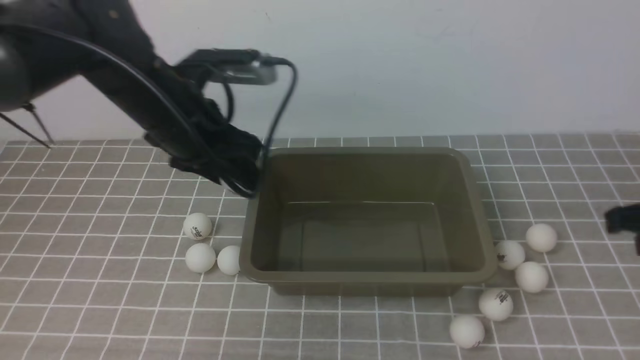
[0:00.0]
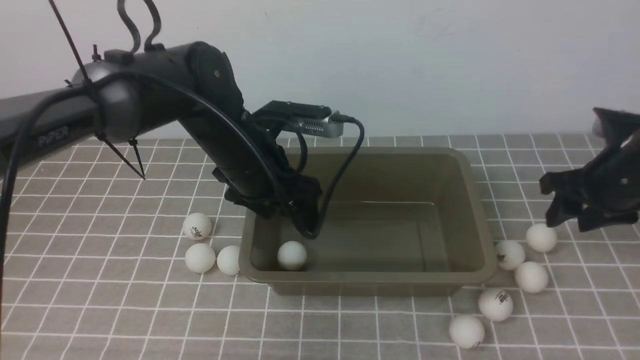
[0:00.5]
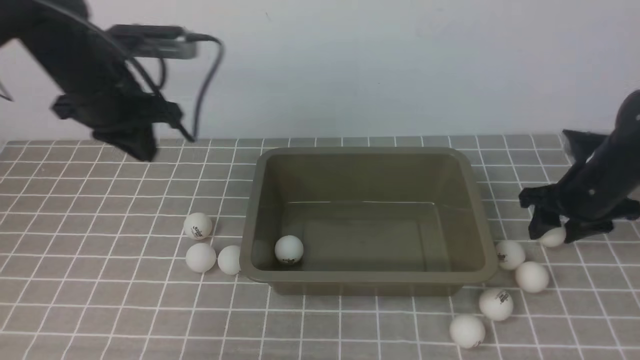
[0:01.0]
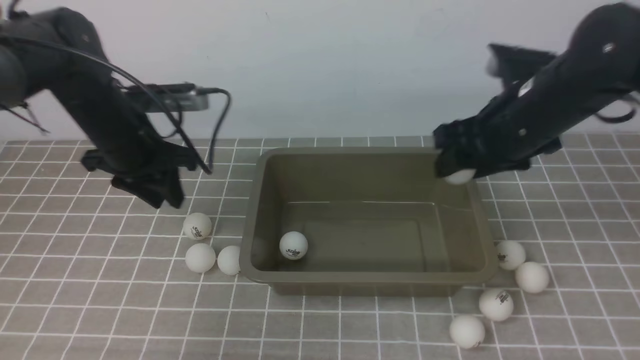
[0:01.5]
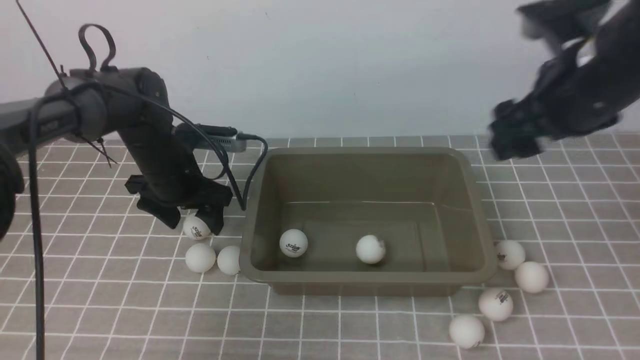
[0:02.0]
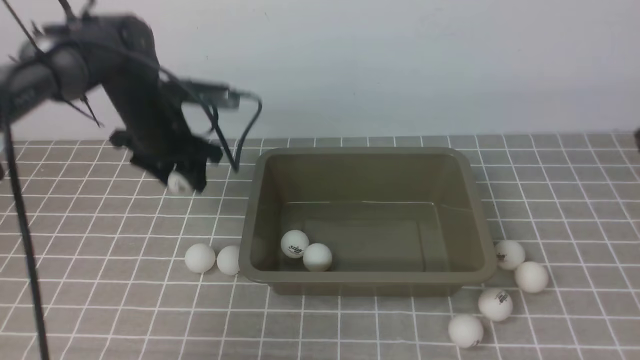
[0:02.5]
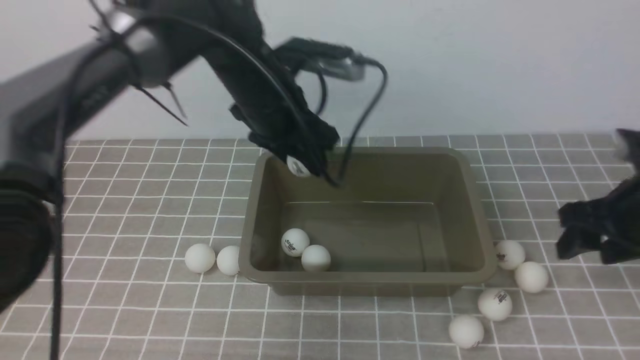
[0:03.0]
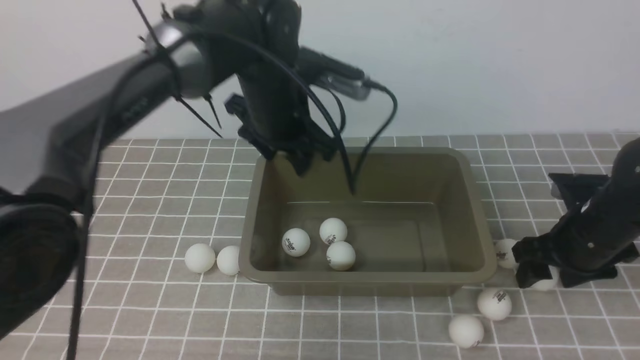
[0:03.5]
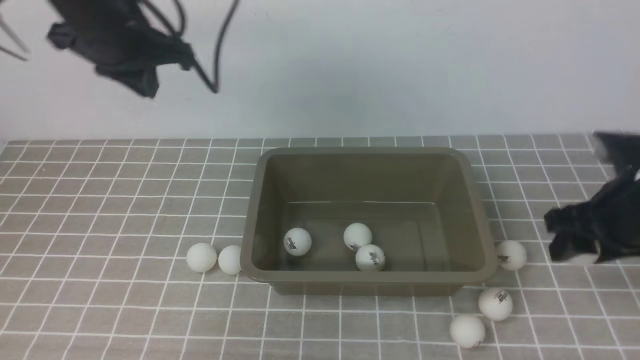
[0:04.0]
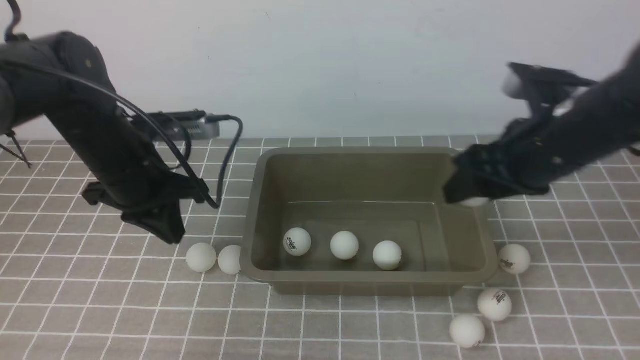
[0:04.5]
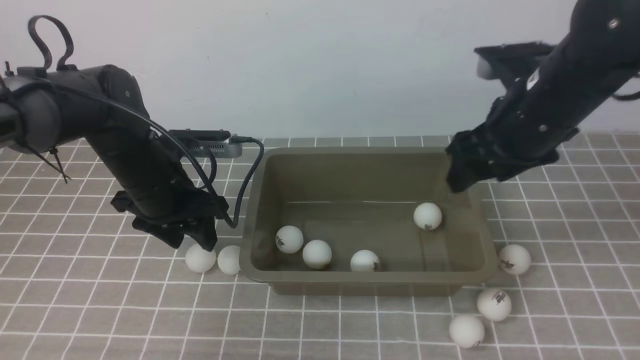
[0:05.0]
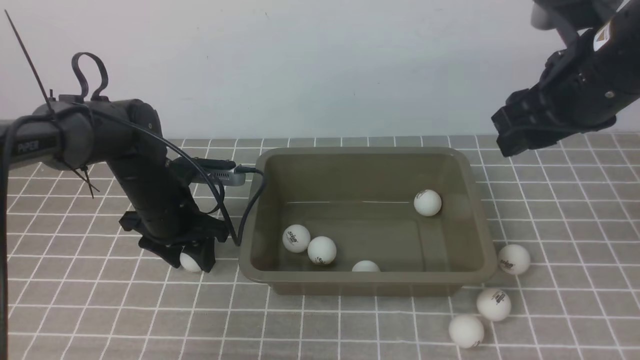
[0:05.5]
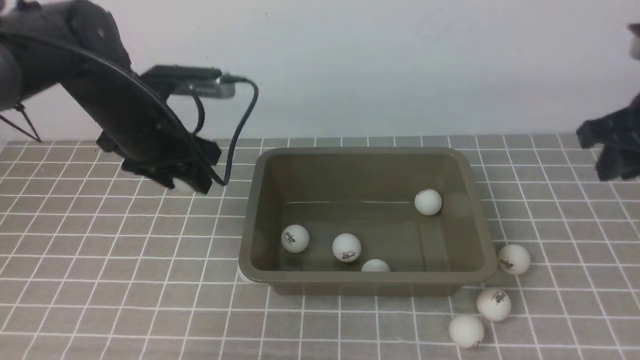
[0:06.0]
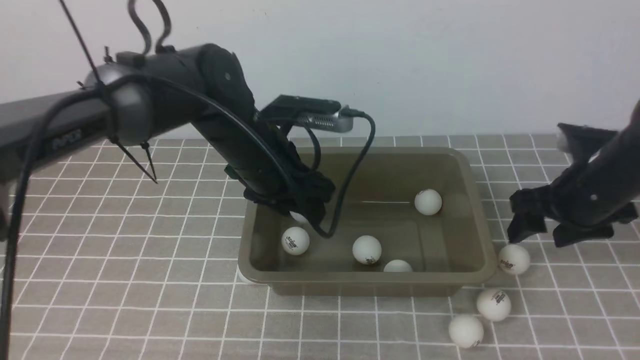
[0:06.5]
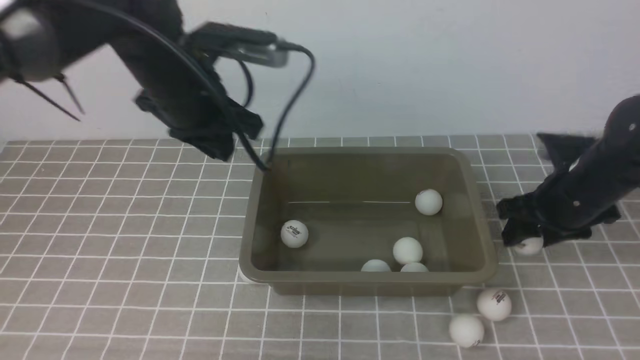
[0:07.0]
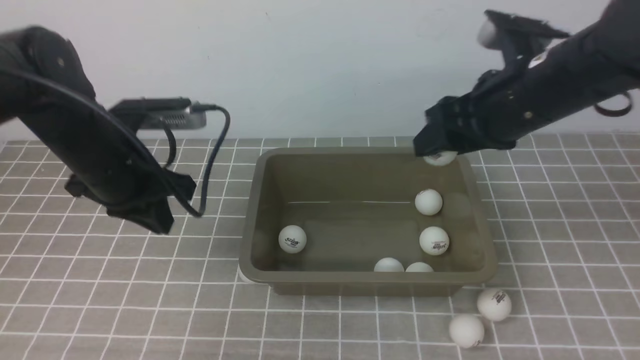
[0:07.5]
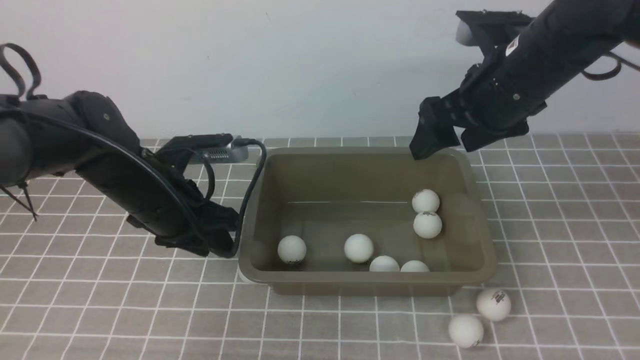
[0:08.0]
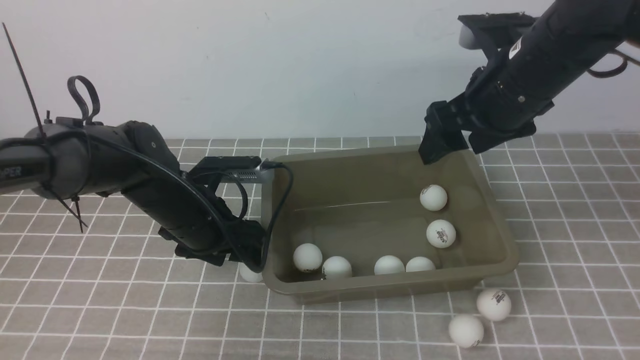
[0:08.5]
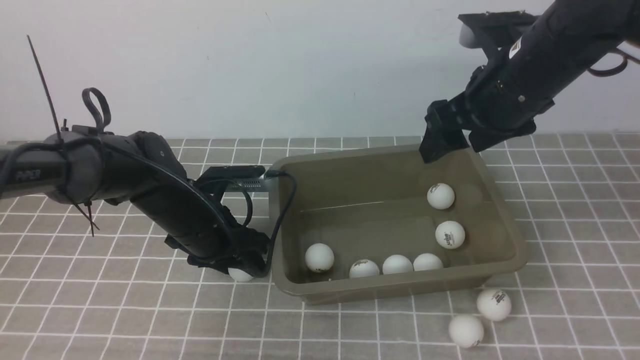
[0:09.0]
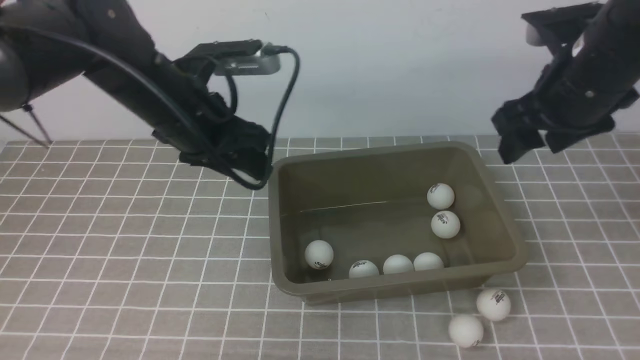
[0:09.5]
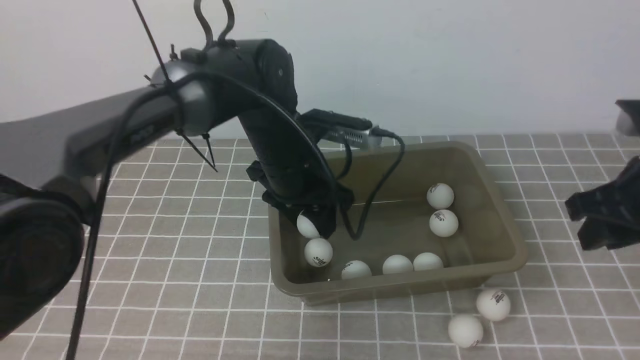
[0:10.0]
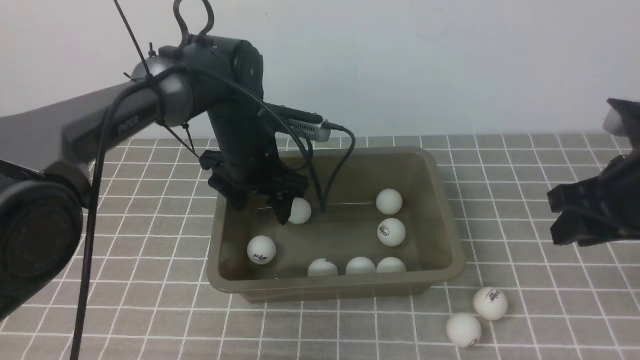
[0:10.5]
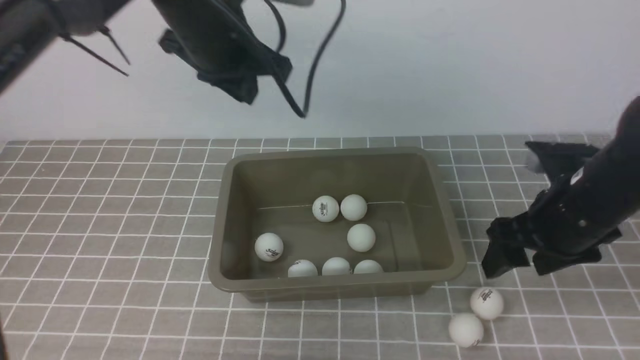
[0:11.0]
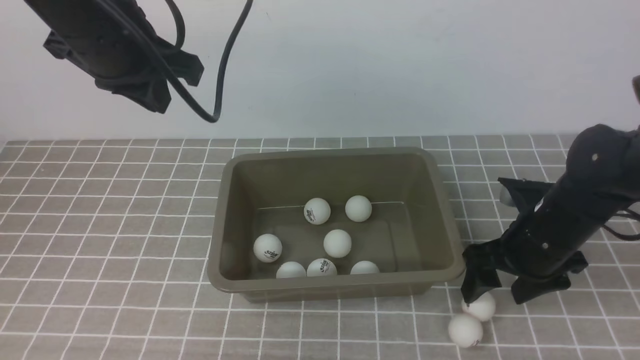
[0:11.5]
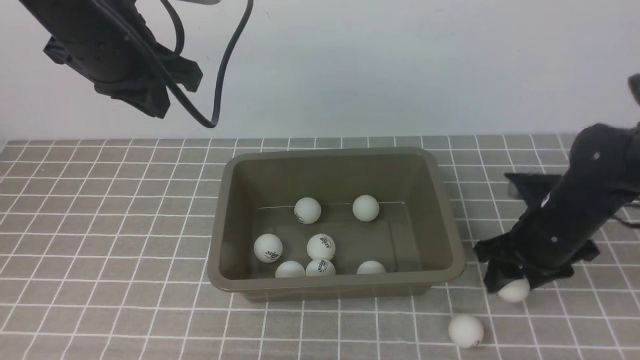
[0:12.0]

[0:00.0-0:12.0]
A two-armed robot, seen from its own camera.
Step, 0:00.0 to 0:00.5: use the left arm to put the table tennis ball into the box.
Step, 0:03.5 to 0:04.0: use the right arm to clamp the table tennis ball closest to it.
Step, 0:05.0 to 0:06.0: use the left arm to clamp the table tennis ball closest to it.
Step, 0:08.0 to 0:09.0: use the left arm to clamp the table tennis ball closest to it.
Step, 0:09.5 to 0:10.5: use the left arm to put the table tennis ball into the box.
0:00.0 to 0:02.0: The left gripper heads downward, forward and to the left, covering about 15 cm, and closes, then opens again, while the right gripper travels to the left, forward and upward by about 10 cm, and opens its fingers.
0:02.0 to 0:04.0: The left gripper travels upward by about 15 cm, and closes, while the right gripper travels downward and to the right by some 15 cm.
0:04.0 to 0:06.0: The right gripper shifts roughly 5 cm upward, while the left gripper travels downward by some 10 cm, and opens up.
0:06.0 to 0:08.0: The left gripper shifts about 5 cm downward, reaches about 10 cm to the right, then returns, and closes and opens again, while the right gripper shifts roughly 10 cm to the left, moves approximately 10 cm downward and comes back, and opens up.
0:08.0 to 0:10.0: The left gripper heads to the right, covering some 10 cm. Meanwhile the right gripper moves to the right and backward, some 15 cm, and closes.
0:10.0 to 0:12.0: The left gripper heads upward and to the left, covering approximately 20 cm, and closes. Meanwhile the right gripper travels downward by approximately 10 cm.

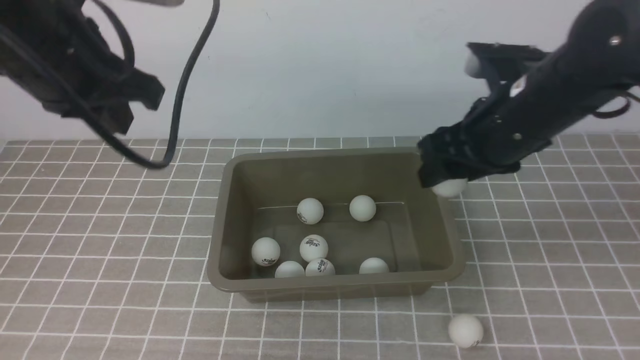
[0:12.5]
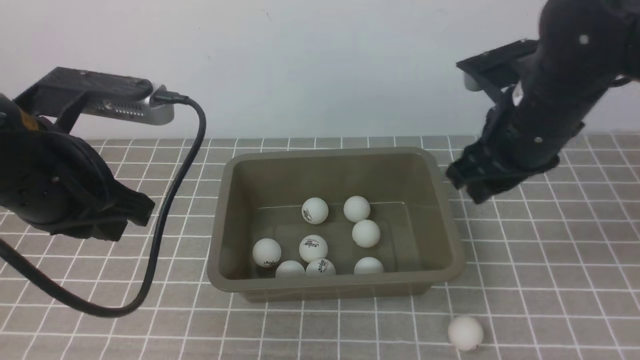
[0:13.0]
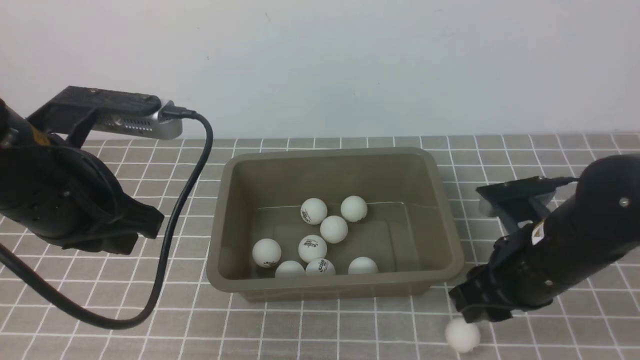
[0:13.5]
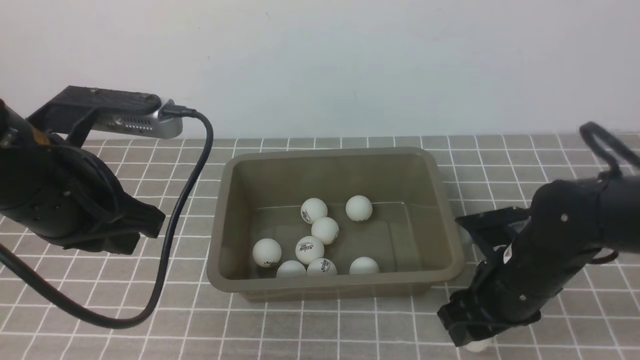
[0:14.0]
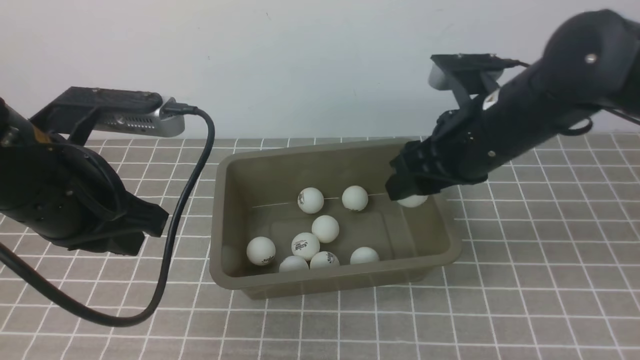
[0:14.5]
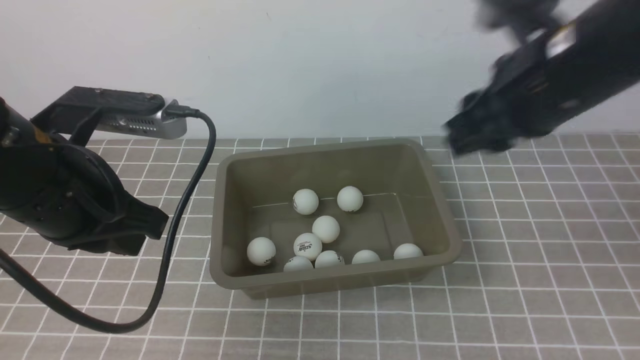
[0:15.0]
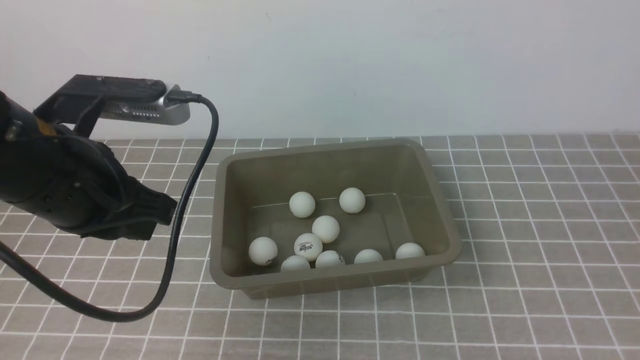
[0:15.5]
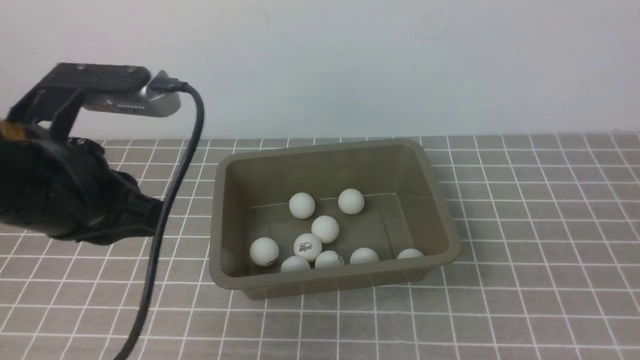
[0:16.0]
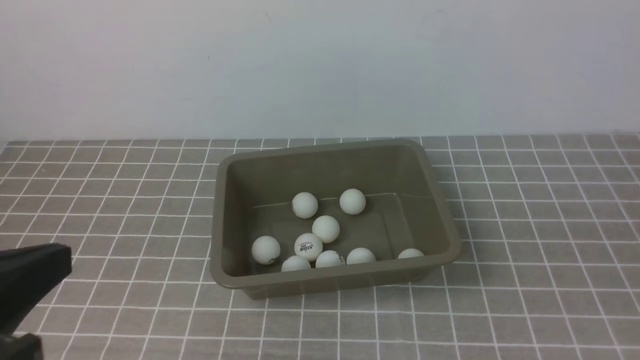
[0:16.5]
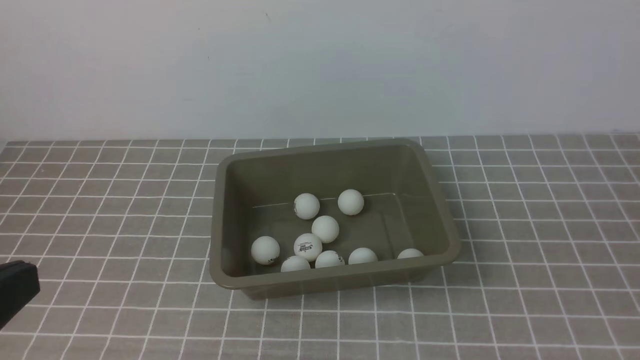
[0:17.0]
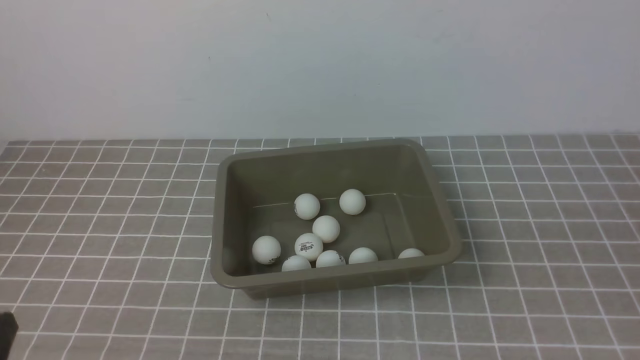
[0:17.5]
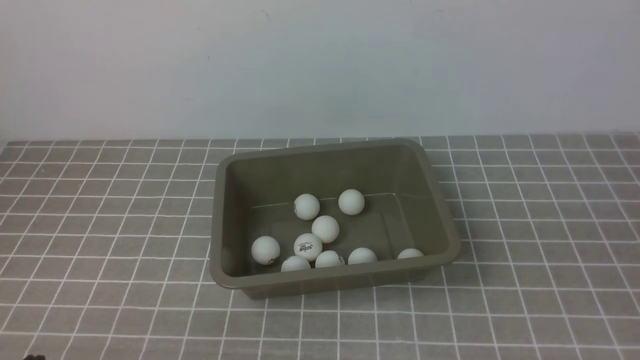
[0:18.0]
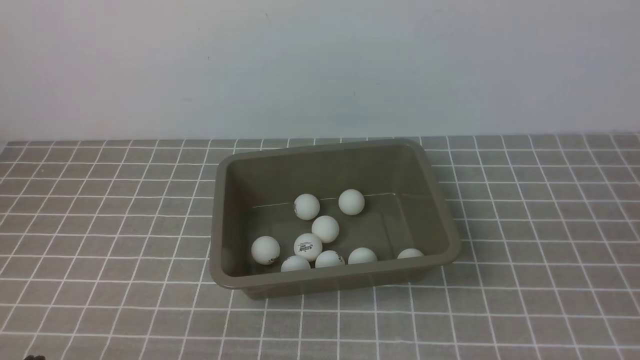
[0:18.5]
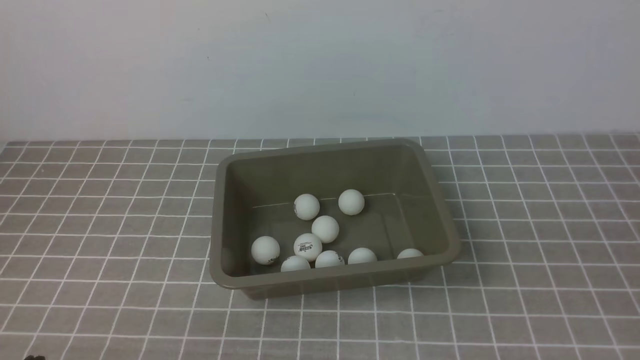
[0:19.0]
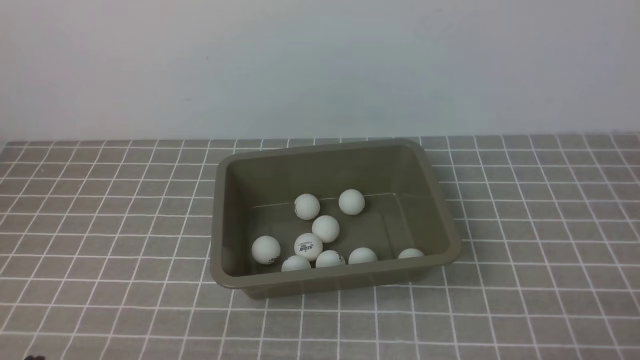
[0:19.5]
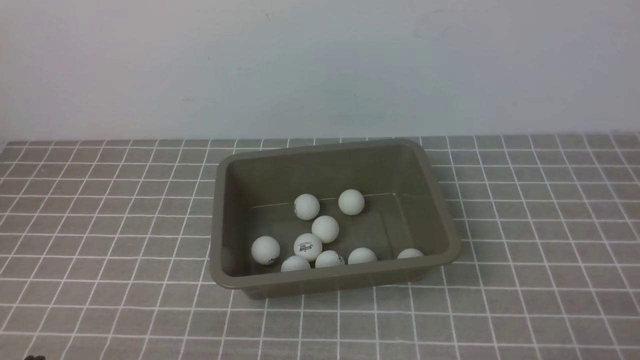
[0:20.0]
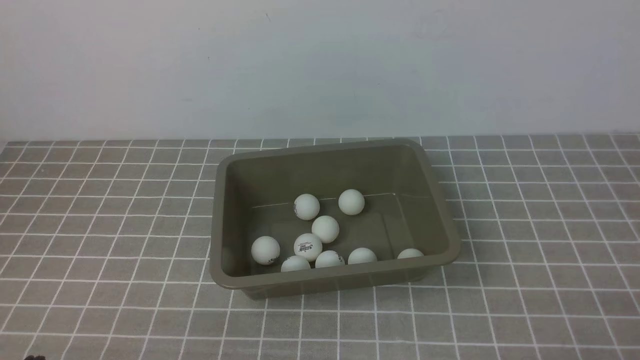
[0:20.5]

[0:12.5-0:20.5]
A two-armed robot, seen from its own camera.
Step, 0:13.0 to 0:14.0: use the right arm to clamp the table tennis ball closest to it.
0:12.5 to 0:14.5: The right gripper reaches approximately 10 cm downward, then returns. Meanwhile the left gripper is displaced downward and backward by roughly 10 cm.
0:14.5 to 0:16.5: The right gripper goes about 30 cm backward and to the right, and closes up, while the left gripper shifts approximately 15 cm backward.
0:16.5 to 0:18.5: The left gripper moves downward, roughly 15 cm.
